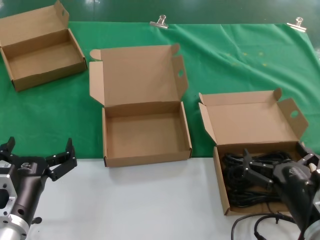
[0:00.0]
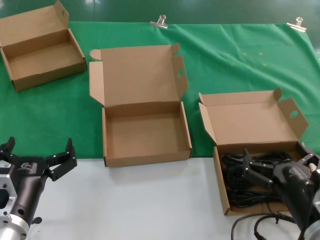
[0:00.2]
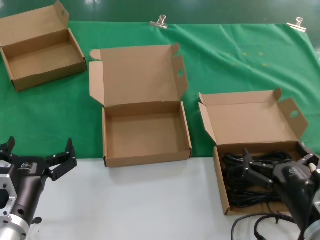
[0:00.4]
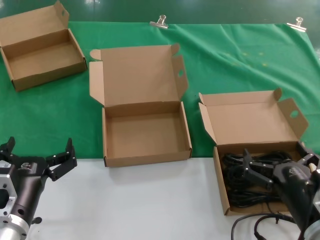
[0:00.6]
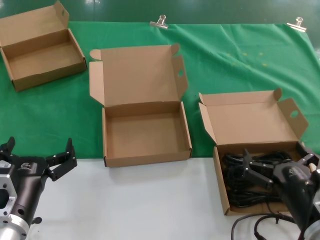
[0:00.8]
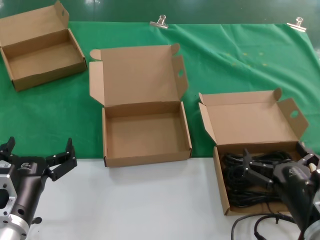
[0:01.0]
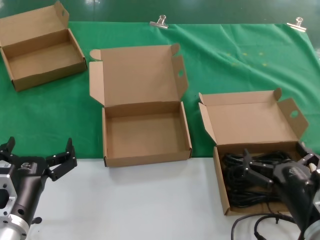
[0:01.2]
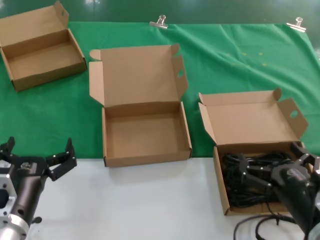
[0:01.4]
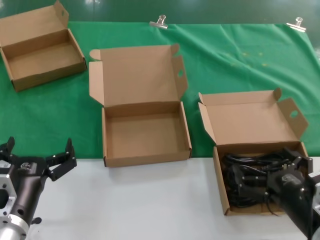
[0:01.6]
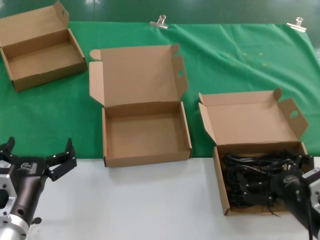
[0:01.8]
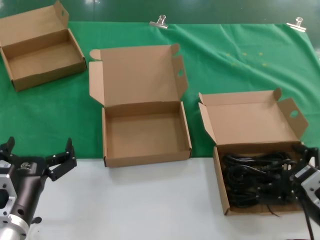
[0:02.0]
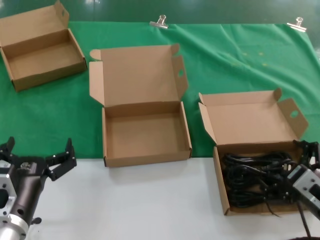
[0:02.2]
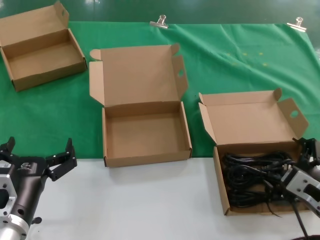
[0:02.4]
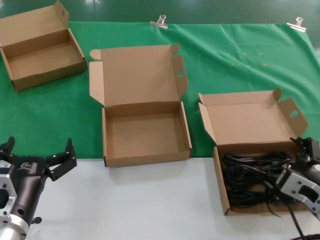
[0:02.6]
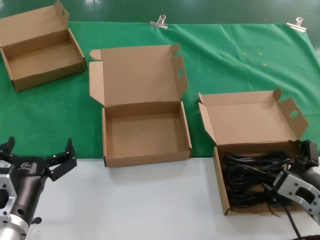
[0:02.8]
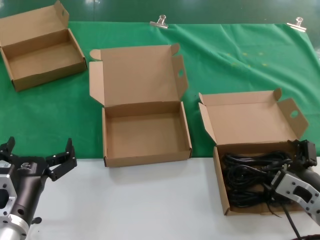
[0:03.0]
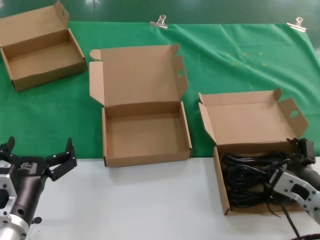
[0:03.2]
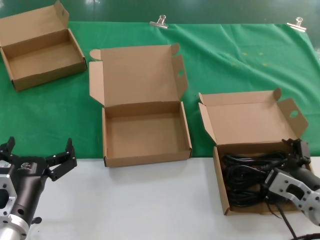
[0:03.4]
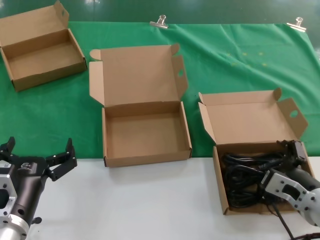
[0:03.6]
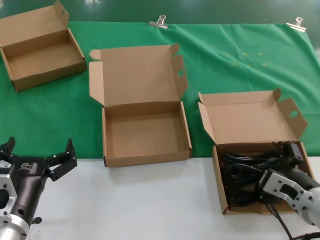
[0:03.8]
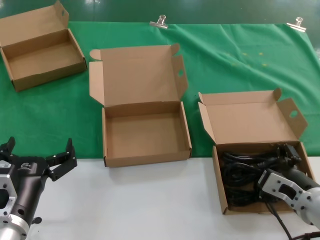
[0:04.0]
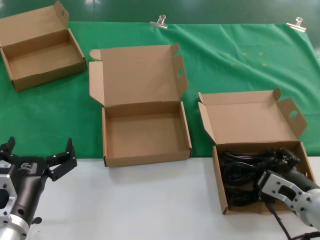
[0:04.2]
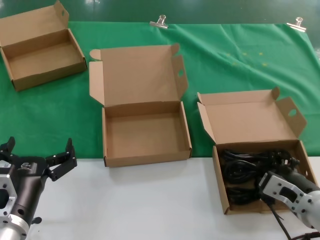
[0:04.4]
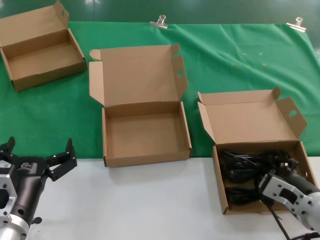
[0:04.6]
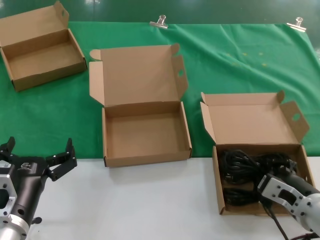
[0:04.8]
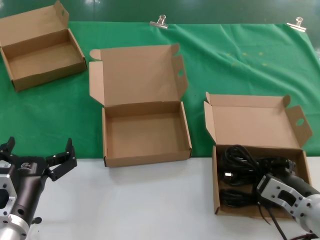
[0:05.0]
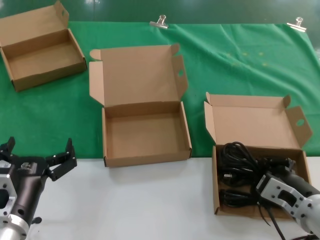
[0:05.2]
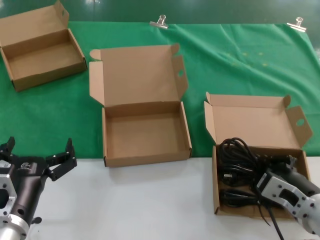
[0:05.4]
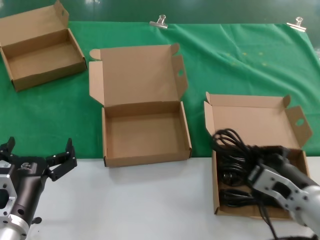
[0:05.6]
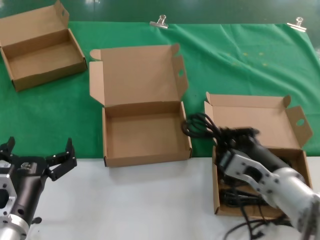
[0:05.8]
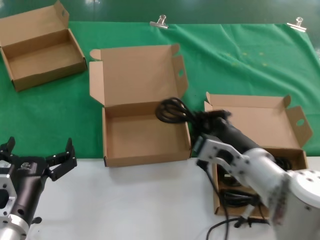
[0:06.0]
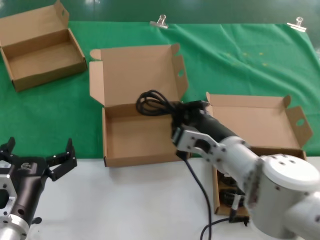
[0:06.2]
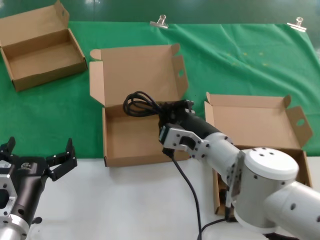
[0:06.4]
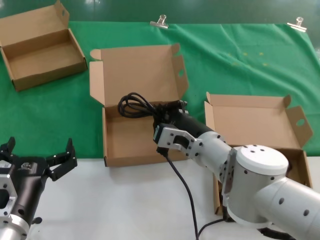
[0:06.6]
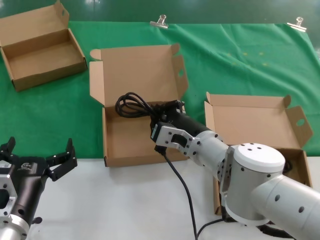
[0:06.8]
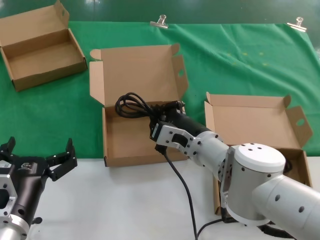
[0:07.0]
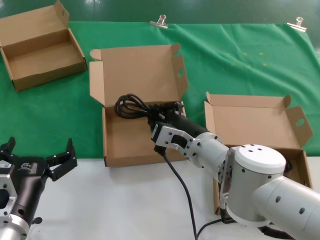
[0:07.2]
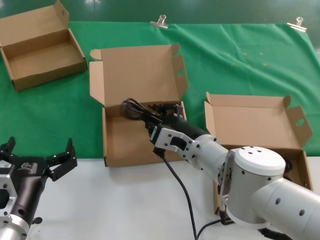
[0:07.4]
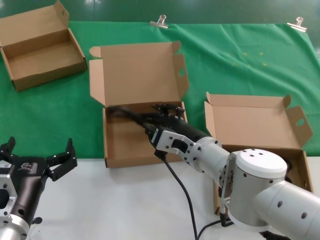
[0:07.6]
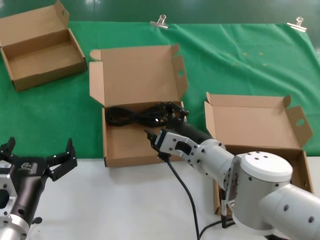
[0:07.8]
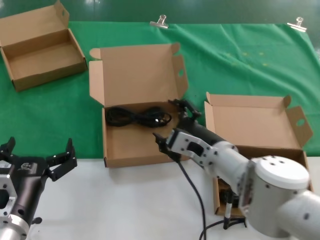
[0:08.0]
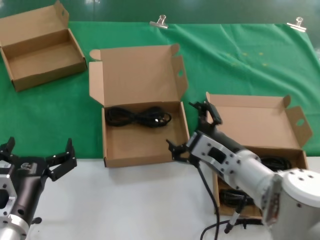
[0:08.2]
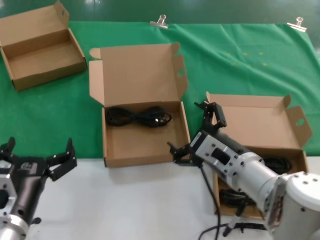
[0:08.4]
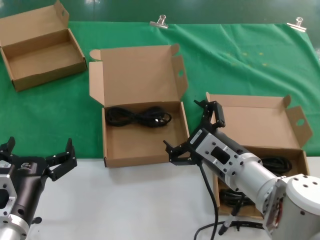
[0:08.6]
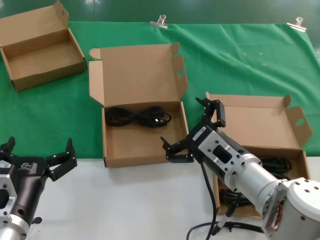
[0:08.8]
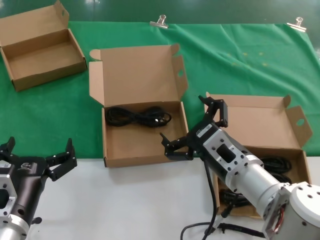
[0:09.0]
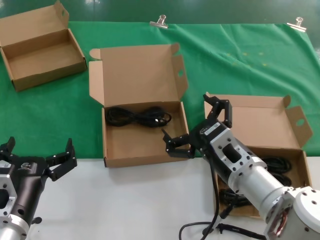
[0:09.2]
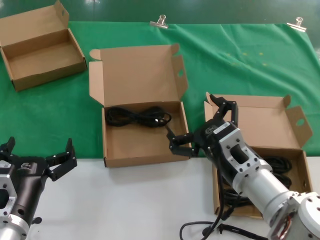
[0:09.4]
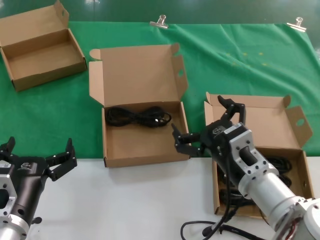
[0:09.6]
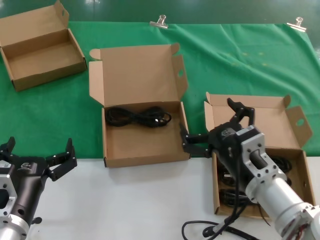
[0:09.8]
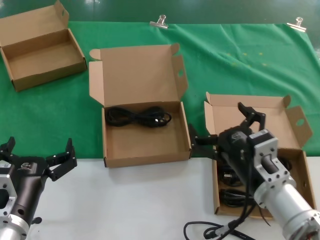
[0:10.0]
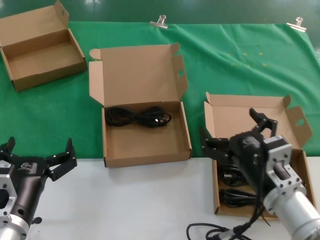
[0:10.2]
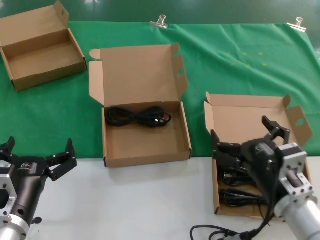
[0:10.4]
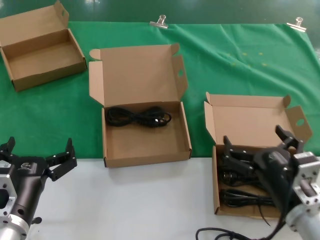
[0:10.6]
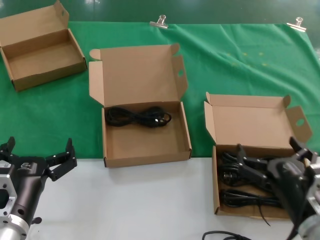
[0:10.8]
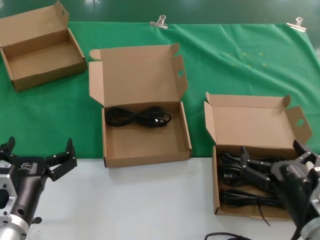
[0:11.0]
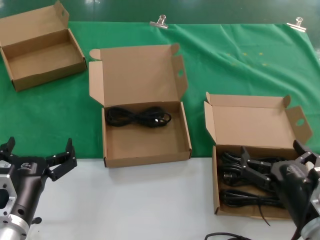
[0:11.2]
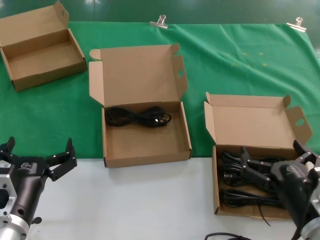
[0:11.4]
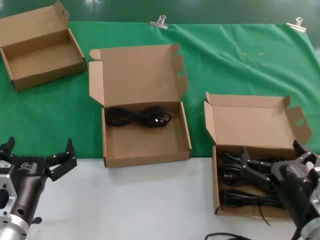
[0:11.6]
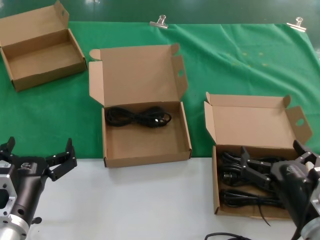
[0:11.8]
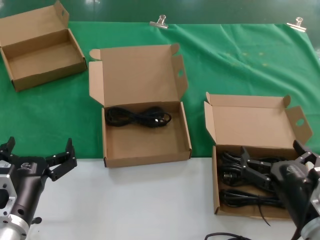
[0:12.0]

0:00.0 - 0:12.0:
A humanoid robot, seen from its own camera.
Task of the whole recording: take the parts from the box containing them and put them into an empty box.
Step, 0:00.0 - 0:04.4: Grasp the data cable.
Step, 0:04.6 - 0:07.8: Place the data cable in the another box.
0:00.0 - 0:01.6: There are only small adjustments of the hands.
0:01.6 - 0:03.0: The right hand changes place by approximately 5 cm.
0:03.0 - 0:04.4: The hands move only a little.
0:04.4 - 0:06.0: The right hand moves to the left and upward, approximately 15 cm.
0:06.0 - 0:07.6: The right hand moves forward and to the left, approximately 10 cm.
0:07.6 - 0:09.0: The right hand shifts about 10 cm backward and to the right.
0:09.0 - 0:10.4: The right hand is displaced to the right by about 5 cm.
0:10.4 - 0:12.0: The right hand moves about 5 cm.

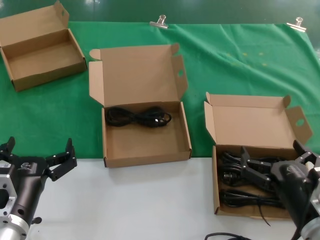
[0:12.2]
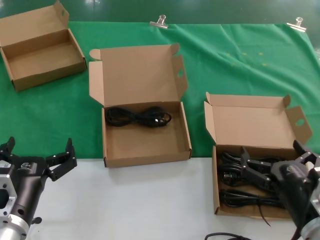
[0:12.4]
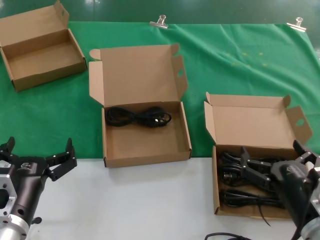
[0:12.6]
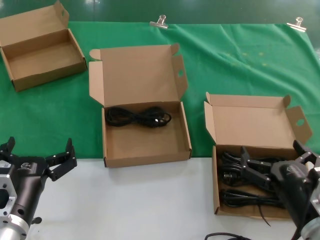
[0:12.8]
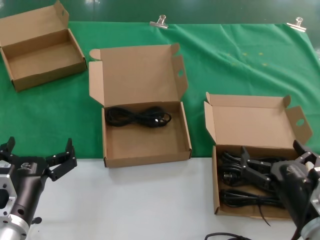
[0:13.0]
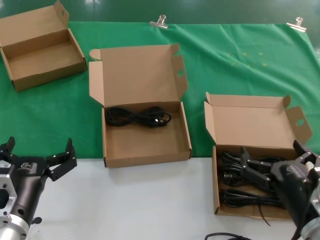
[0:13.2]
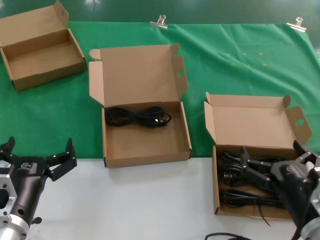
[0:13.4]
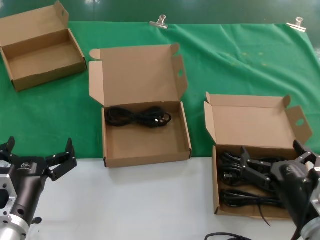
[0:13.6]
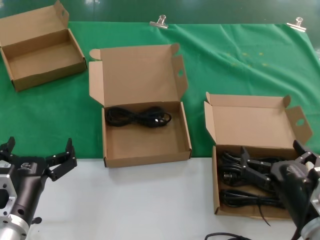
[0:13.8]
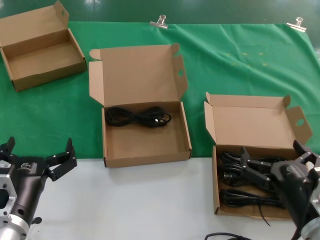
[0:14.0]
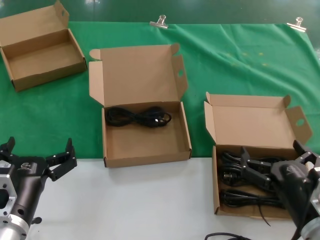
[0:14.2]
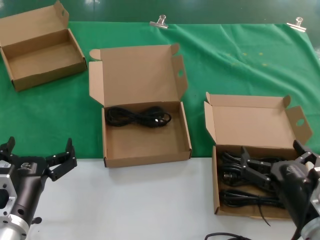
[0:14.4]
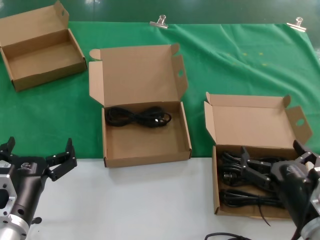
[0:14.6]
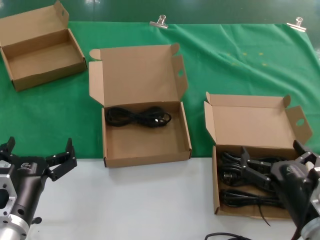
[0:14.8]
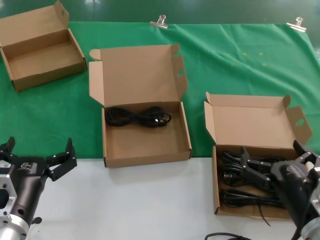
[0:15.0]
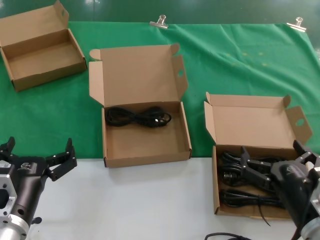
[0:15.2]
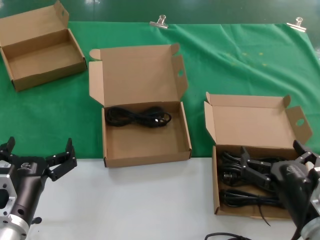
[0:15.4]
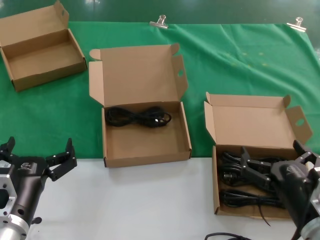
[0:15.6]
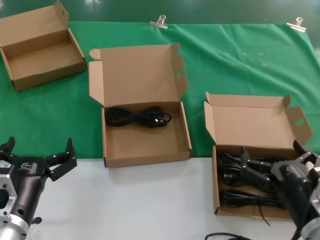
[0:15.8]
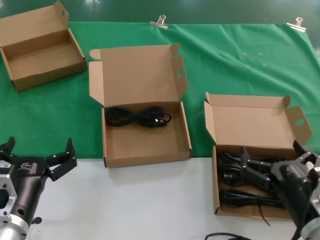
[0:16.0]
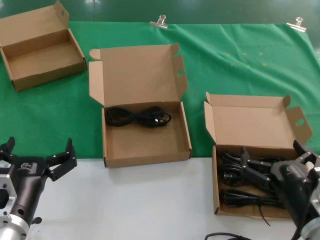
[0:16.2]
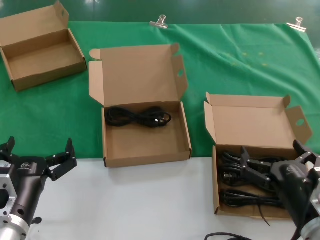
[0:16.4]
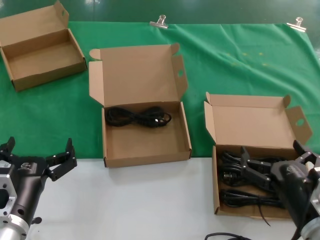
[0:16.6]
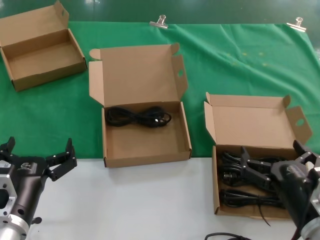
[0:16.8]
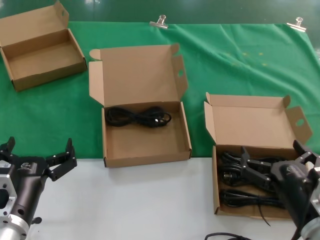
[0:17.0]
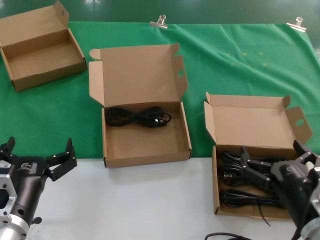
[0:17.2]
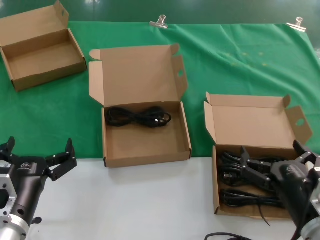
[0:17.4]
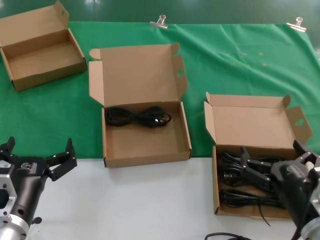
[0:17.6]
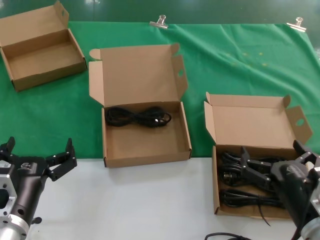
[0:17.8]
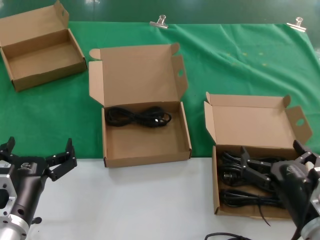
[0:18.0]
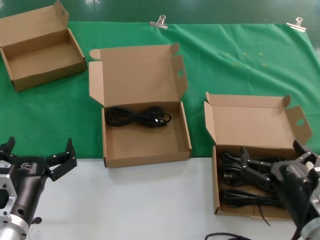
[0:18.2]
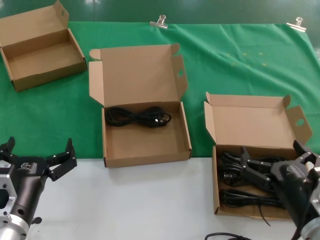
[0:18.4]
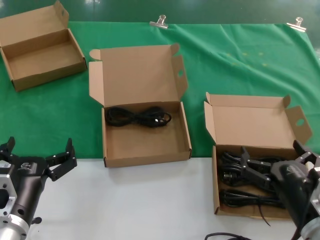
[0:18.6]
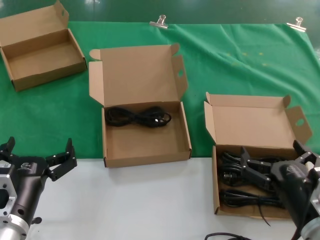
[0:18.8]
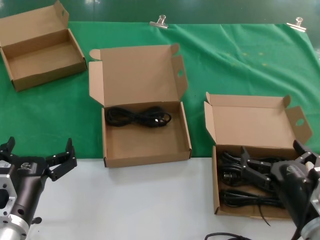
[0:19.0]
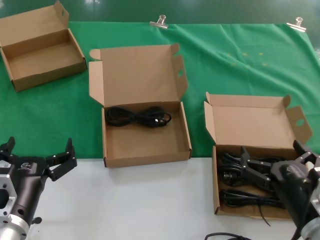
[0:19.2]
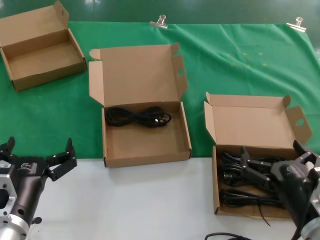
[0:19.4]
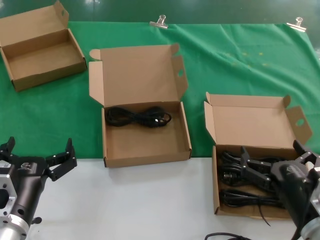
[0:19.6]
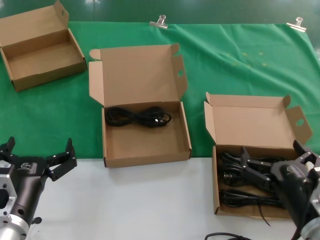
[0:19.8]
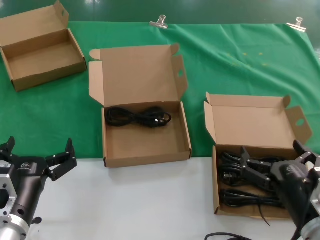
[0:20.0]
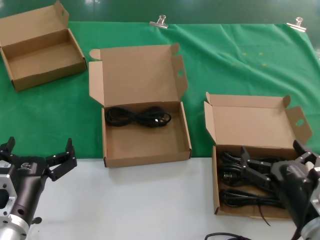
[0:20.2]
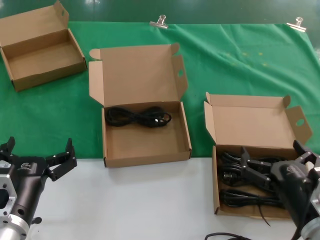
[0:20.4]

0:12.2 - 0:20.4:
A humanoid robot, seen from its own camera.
Task of the whole recording: take the parts from the box containing them and put them into an empty box.
0:12.2 - 0:20.4: Neither hand changes place.
